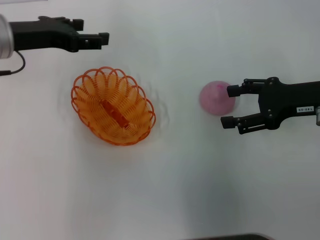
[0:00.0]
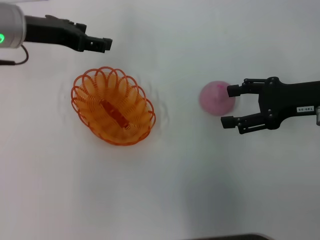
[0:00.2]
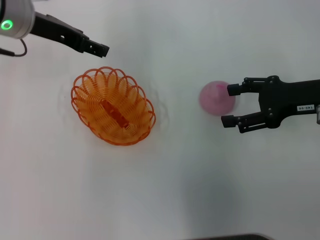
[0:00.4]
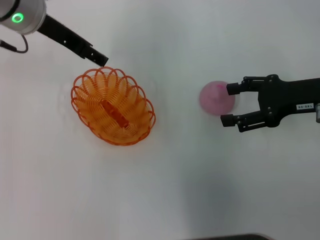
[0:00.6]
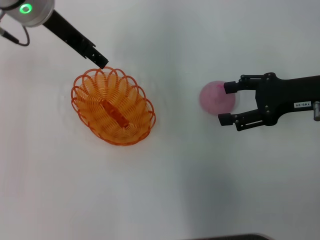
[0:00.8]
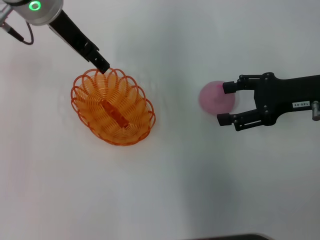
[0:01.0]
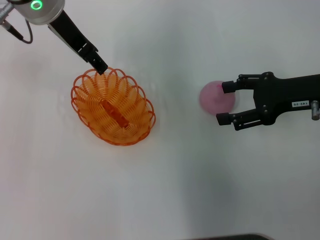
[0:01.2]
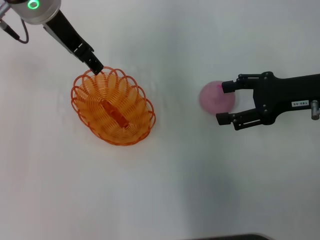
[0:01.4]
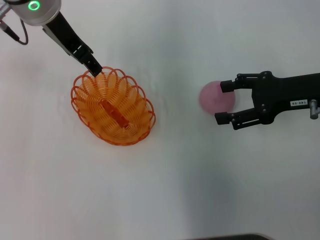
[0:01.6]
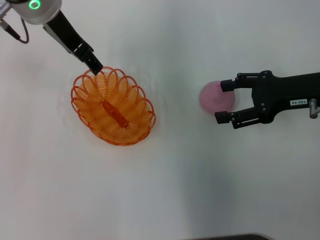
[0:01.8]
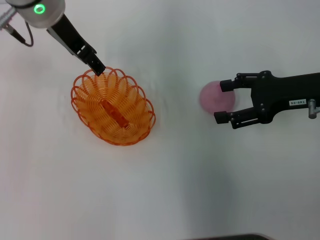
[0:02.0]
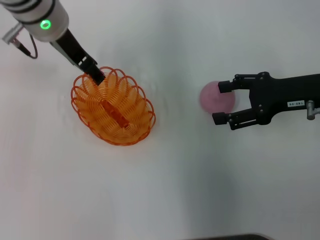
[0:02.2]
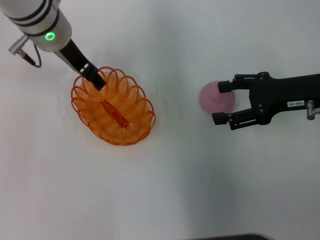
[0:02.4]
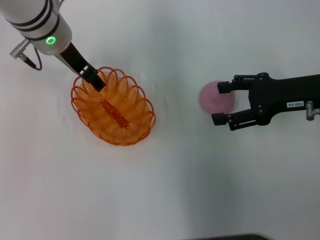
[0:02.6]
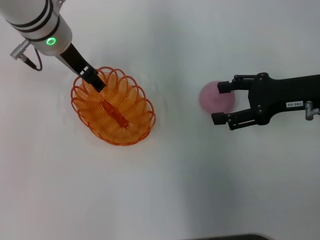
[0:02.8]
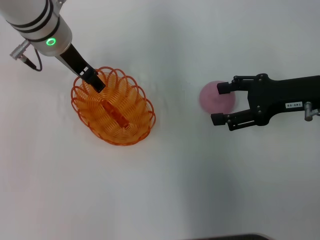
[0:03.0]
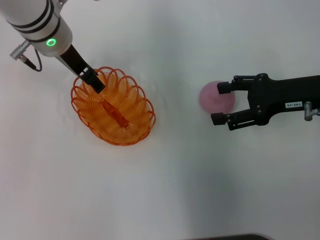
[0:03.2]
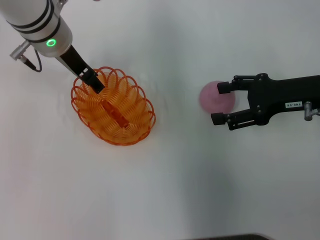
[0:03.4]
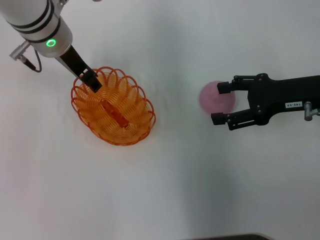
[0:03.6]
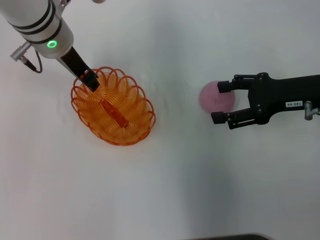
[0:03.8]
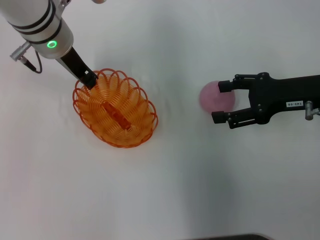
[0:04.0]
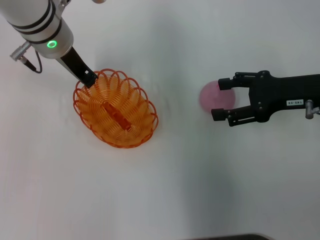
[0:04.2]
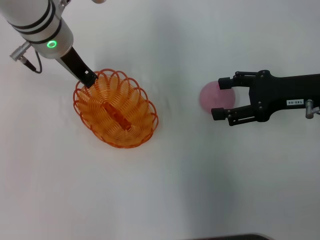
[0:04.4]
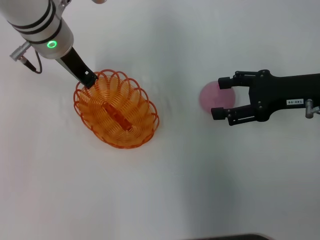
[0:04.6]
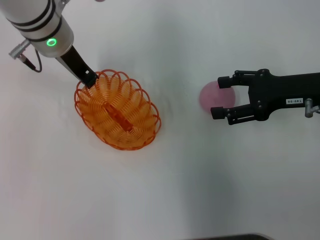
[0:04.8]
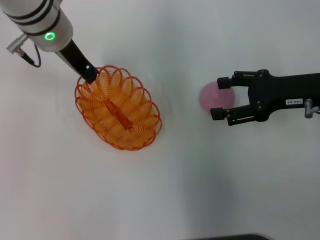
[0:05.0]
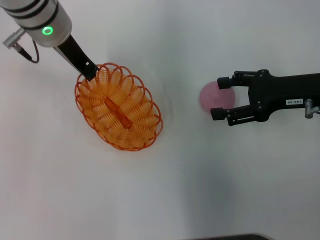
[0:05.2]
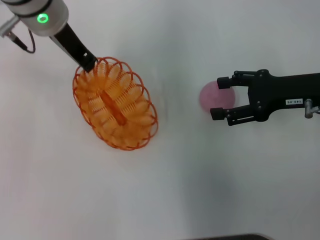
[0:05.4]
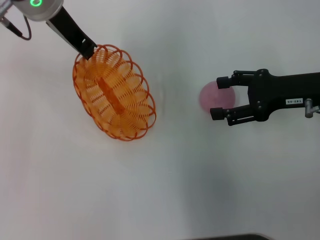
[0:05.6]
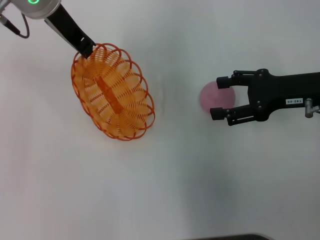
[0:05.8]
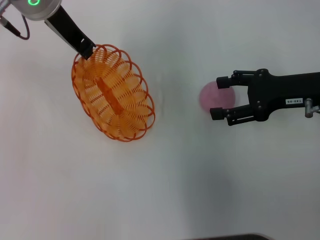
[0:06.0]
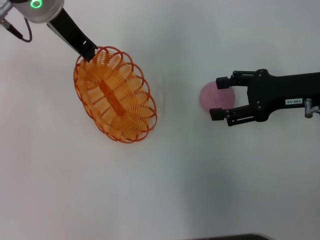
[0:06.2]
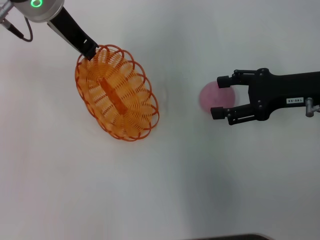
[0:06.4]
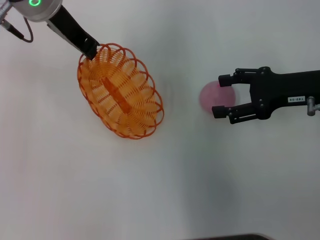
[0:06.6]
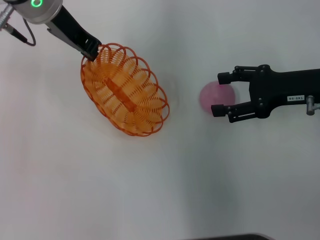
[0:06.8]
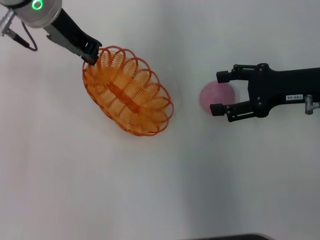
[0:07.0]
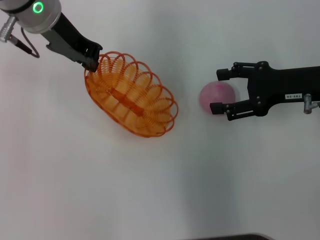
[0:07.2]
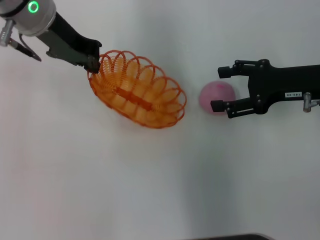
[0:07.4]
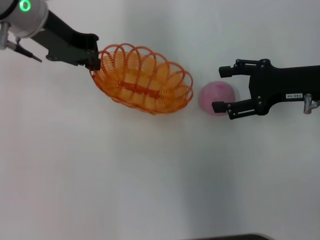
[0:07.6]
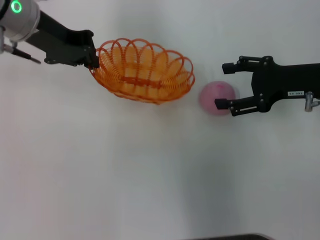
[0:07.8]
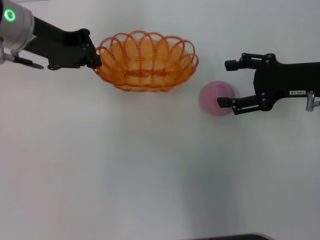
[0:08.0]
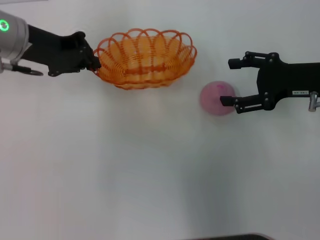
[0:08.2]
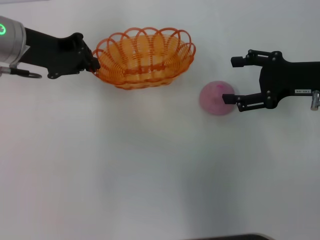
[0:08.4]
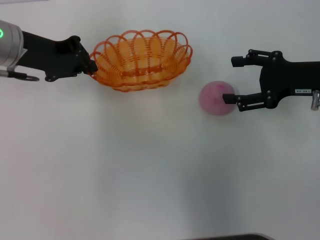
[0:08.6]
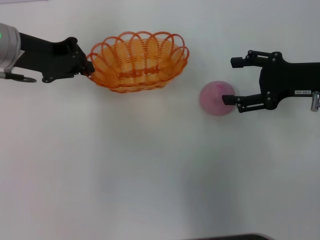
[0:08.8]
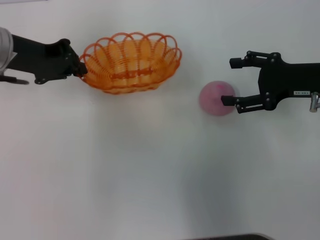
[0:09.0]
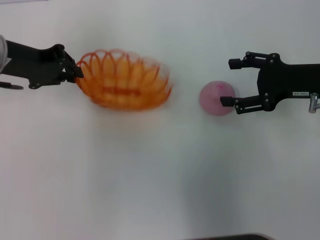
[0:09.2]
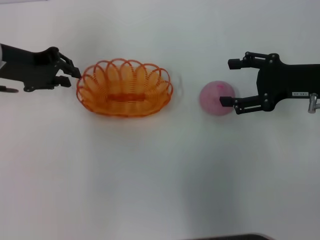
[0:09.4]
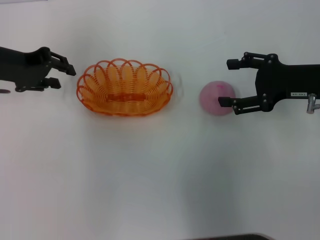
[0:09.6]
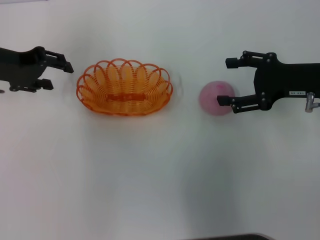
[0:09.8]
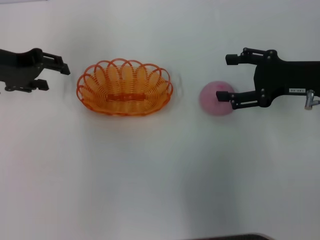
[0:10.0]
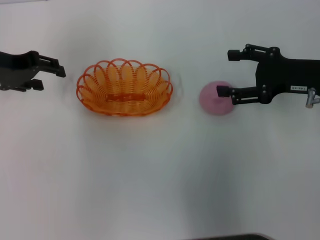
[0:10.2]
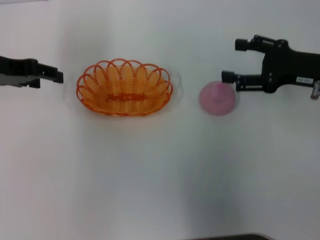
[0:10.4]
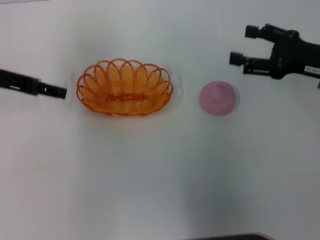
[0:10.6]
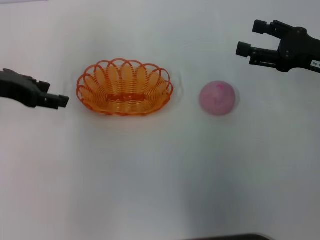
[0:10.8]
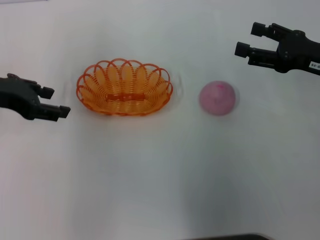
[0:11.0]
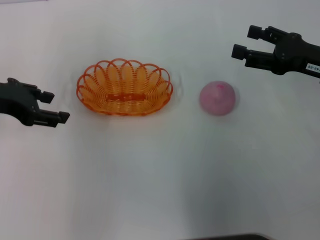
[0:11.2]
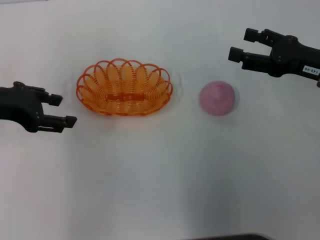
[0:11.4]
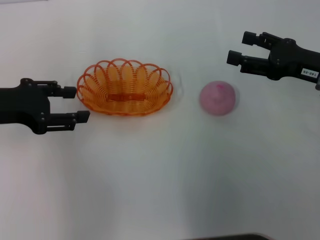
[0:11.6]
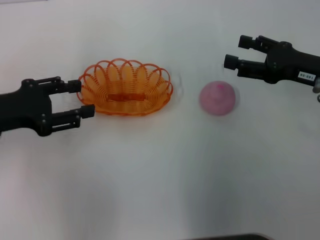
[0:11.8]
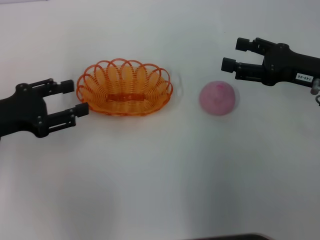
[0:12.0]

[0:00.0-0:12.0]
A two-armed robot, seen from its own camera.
Step, 0:00.0 to 0:05.2: Pick up the basket with the left gripper.
Step, 0:05.6 to 0:09.6: Place the basket in the center of view with the left gripper.
0:00.0 to 0:01.6: The left gripper goes some 10 cm to the right and upward.
0:01.6 to 0:03.0: The left gripper is displaced downward by about 5 cm.
0:03.0 to 0:04.4: The left gripper closes.
0:04.4 to 0:06.0: The left gripper shifts about 5 cm upward.
0:07.6 to 0:09.0: The left gripper moves to the left, roughly 5 cm.
0:09.0 to 0:10.4: The left gripper opens its fingers.
0:10.4 to 0:12.0: The left gripper travels backward and downward by roughly 10 cm.

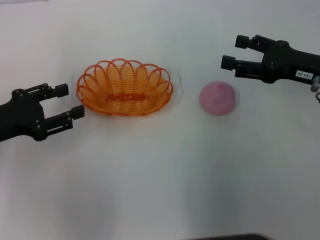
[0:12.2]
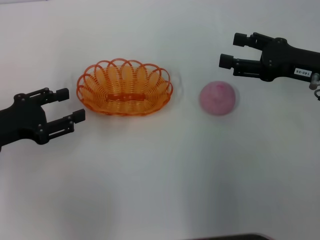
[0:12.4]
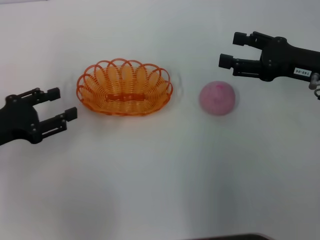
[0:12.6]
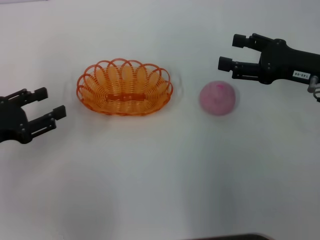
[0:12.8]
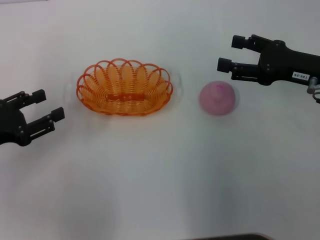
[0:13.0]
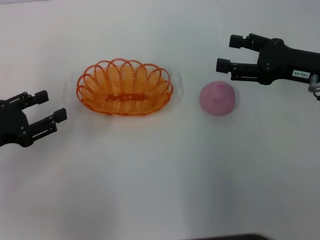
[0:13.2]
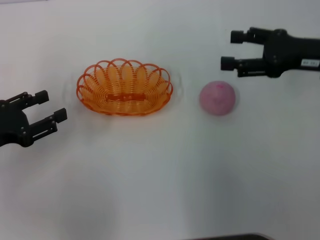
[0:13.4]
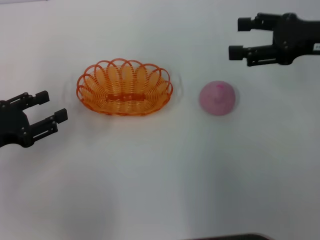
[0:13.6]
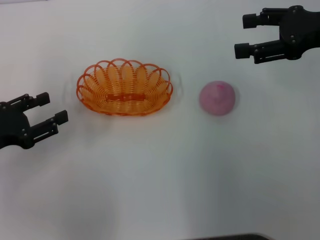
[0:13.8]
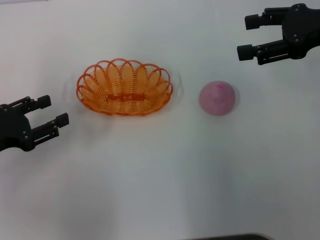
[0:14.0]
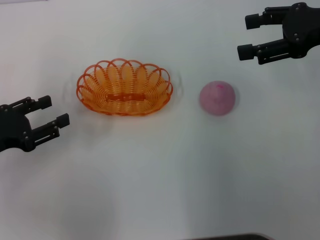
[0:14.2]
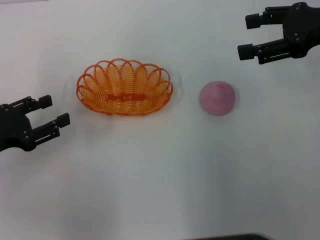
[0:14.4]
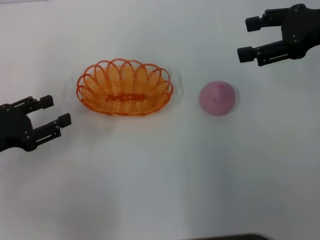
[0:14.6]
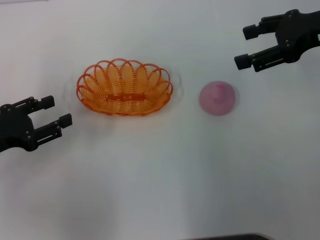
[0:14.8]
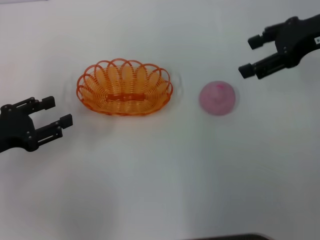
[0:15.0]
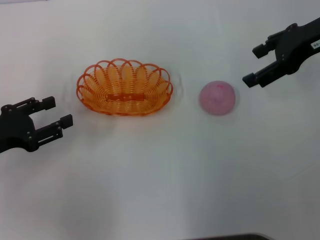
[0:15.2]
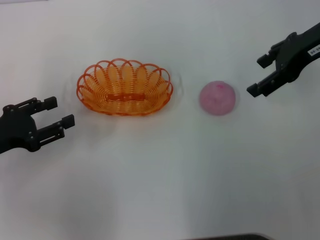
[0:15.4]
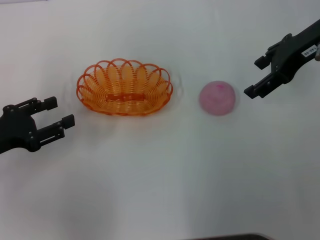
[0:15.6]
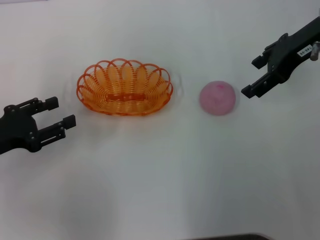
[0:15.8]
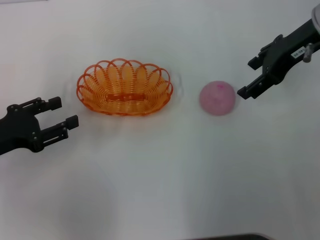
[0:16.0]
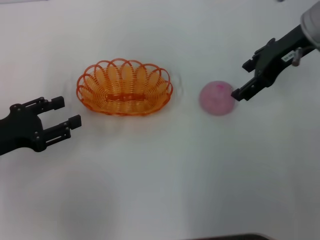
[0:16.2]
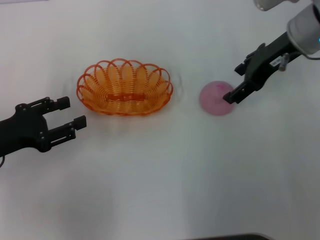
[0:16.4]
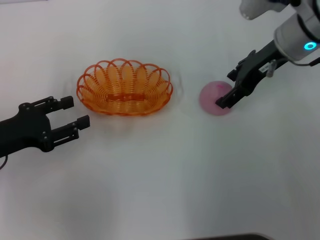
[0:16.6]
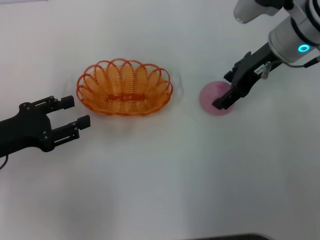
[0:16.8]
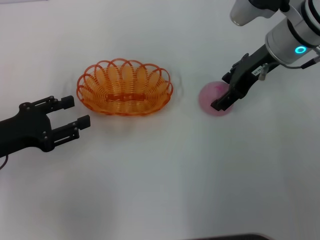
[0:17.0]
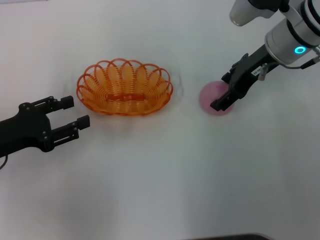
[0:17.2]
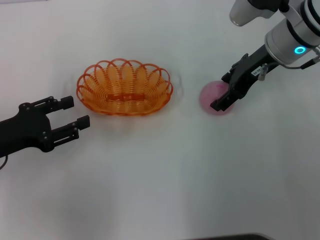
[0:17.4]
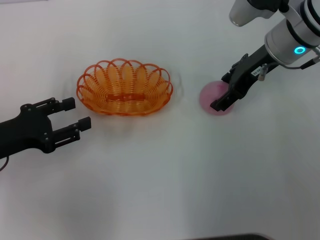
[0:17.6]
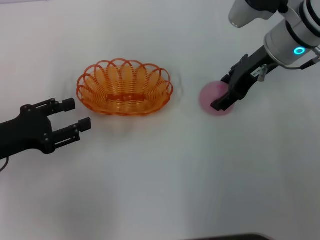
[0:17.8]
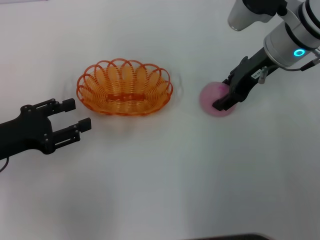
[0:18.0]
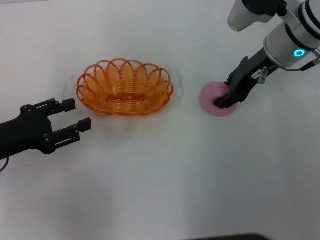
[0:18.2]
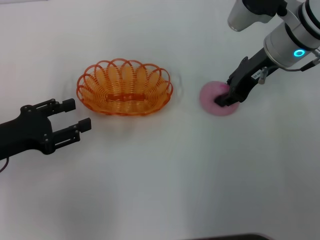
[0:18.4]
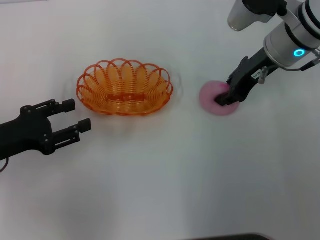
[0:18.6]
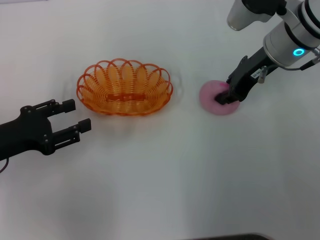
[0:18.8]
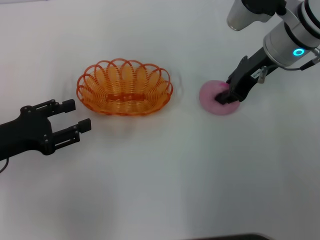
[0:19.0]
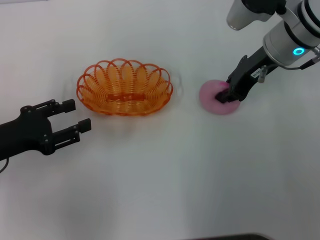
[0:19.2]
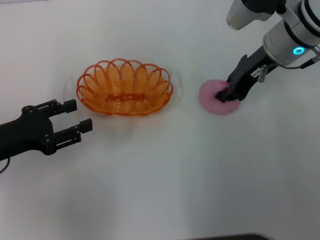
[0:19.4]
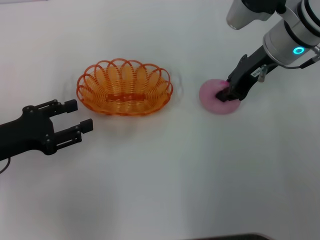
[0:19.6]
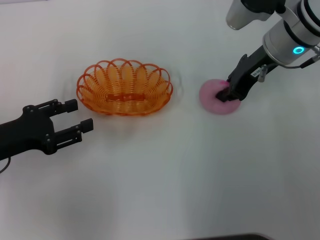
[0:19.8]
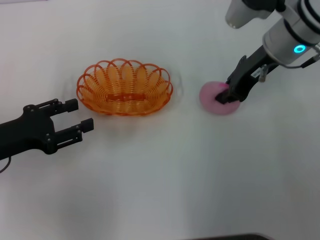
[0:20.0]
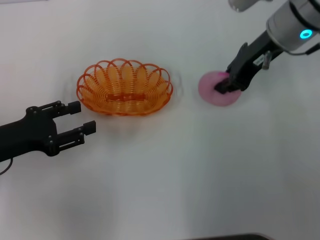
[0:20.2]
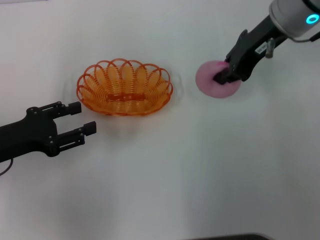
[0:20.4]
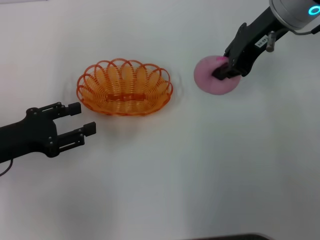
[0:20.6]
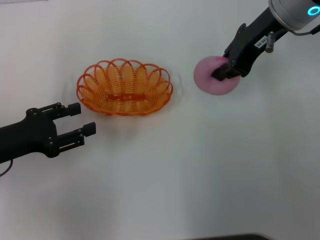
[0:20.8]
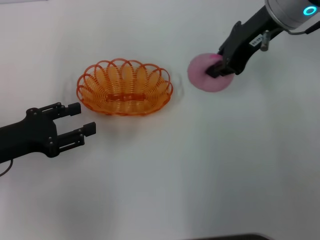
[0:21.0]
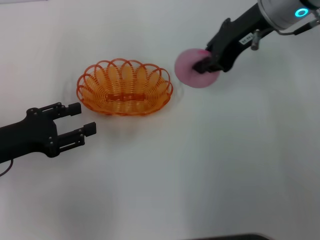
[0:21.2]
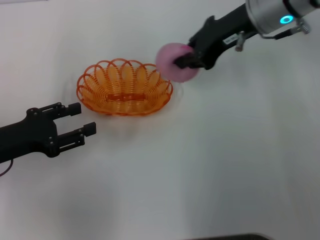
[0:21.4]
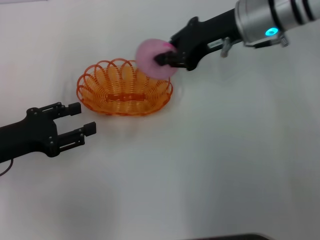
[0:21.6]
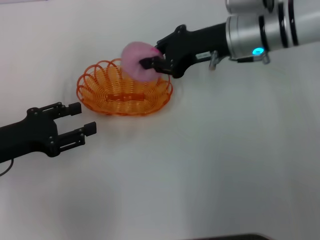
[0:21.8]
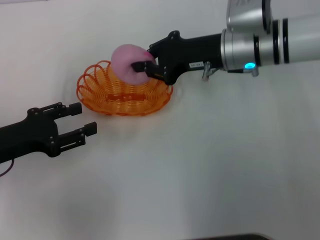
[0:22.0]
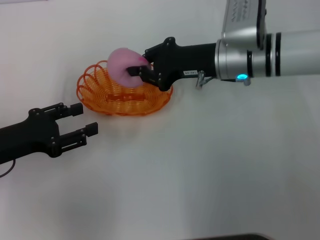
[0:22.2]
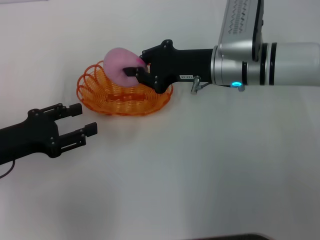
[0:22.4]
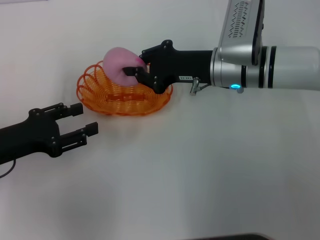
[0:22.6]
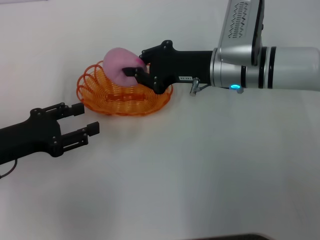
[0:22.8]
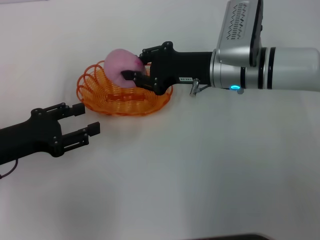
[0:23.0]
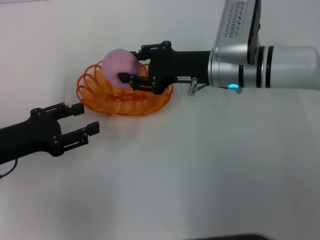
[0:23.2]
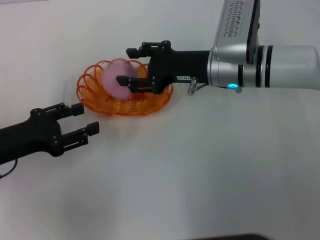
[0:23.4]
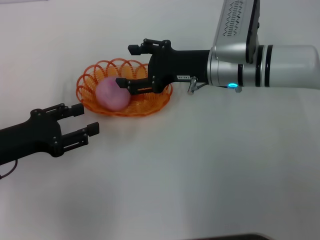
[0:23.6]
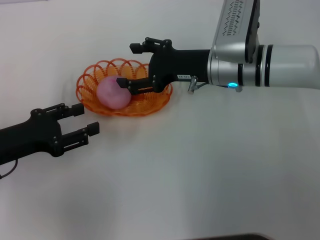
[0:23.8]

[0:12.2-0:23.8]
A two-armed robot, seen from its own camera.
Step, 0:12.2 to 0:20.6: Pick up the peach with the right gripper.
0:12.2 to 0:13.6: The right gripper is displaced upward by roughly 5 cm.
0:13.6 to 0:15.0: The right gripper moves approximately 5 cm.
0:15.0 to 0:16.6: The right gripper goes some 10 cm to the left and downward.
0:16.6 to 0:18.0: Both grippers stay put.
0:18.0 to 0:19.4: The right gripper closes.
0:19.4 to 0:21.0: The right gripper shifts about 5 cm upward.
0:21.0 to 0:22.4: The right gripper moves downward, about 15 cm.
0:22.4 to 0:23.8: The right gripper opens its fingers.
